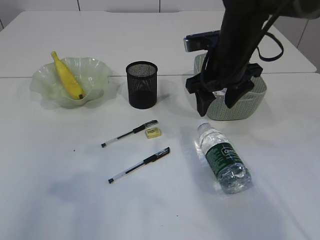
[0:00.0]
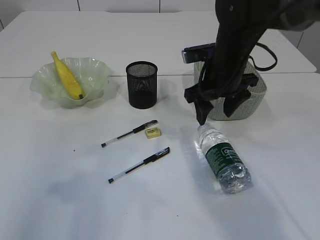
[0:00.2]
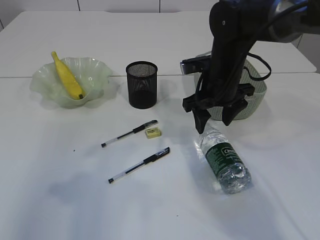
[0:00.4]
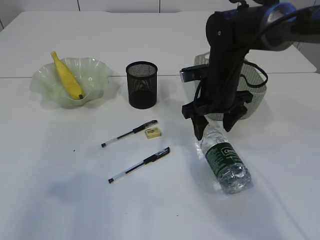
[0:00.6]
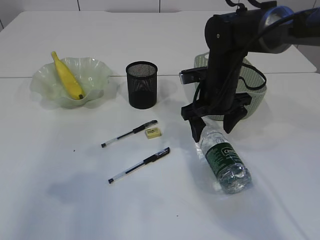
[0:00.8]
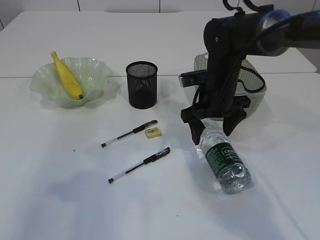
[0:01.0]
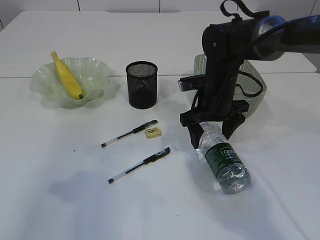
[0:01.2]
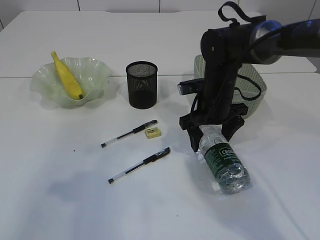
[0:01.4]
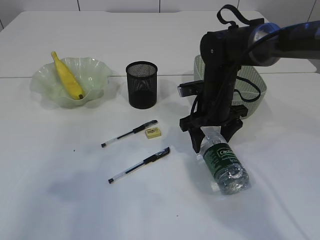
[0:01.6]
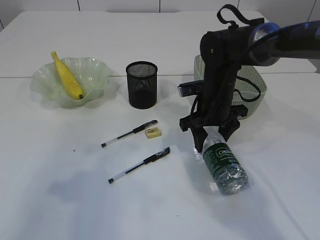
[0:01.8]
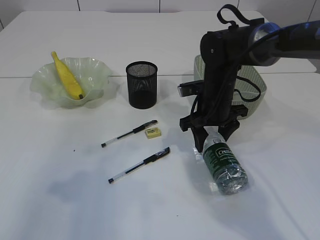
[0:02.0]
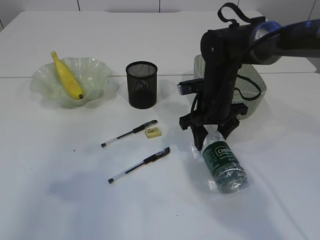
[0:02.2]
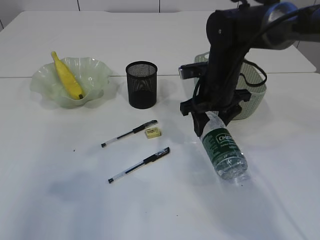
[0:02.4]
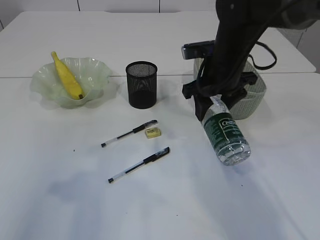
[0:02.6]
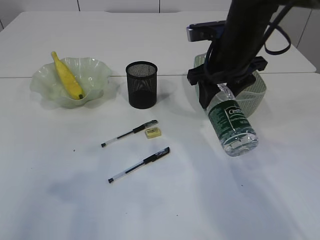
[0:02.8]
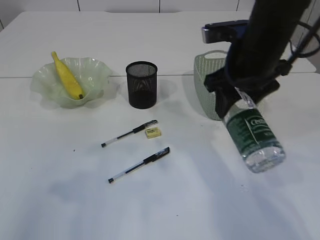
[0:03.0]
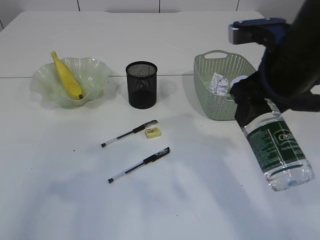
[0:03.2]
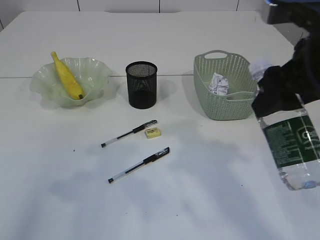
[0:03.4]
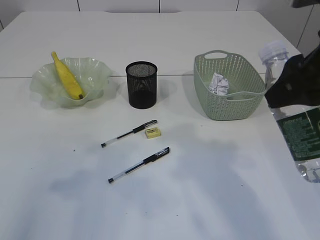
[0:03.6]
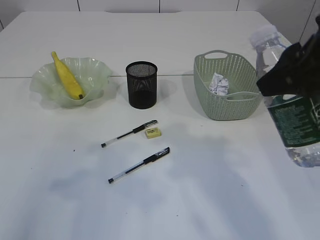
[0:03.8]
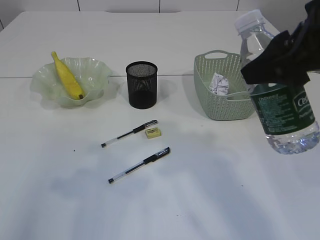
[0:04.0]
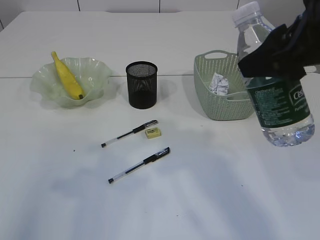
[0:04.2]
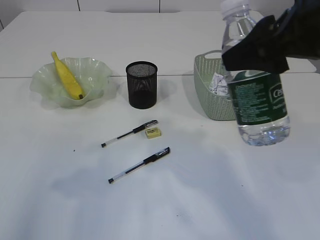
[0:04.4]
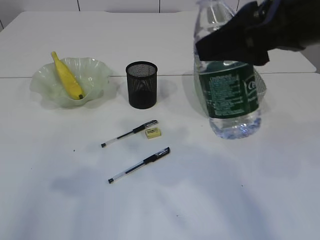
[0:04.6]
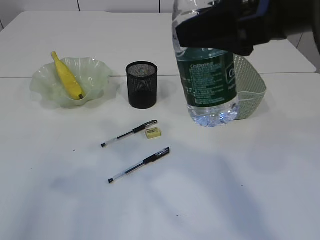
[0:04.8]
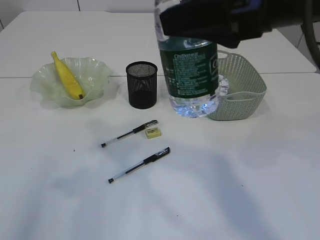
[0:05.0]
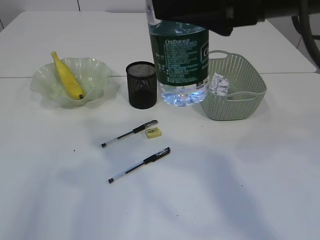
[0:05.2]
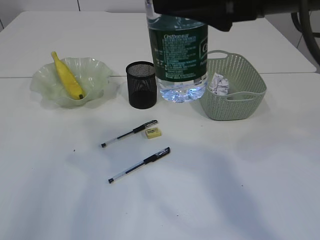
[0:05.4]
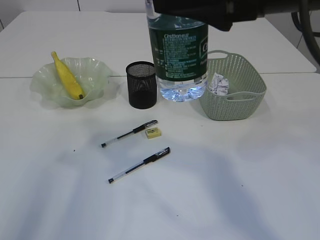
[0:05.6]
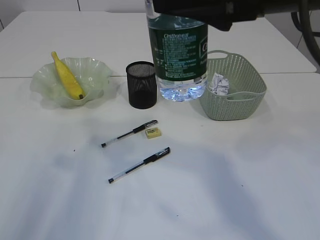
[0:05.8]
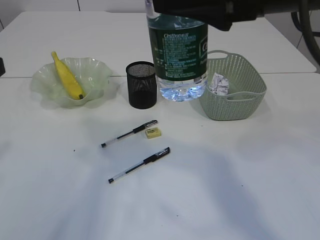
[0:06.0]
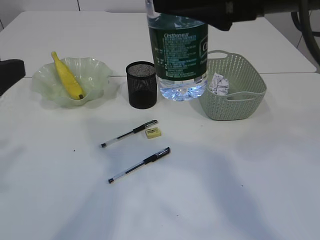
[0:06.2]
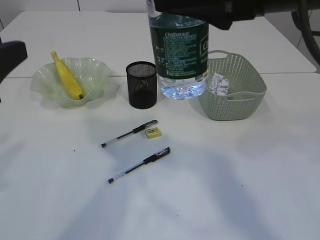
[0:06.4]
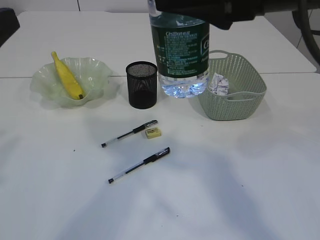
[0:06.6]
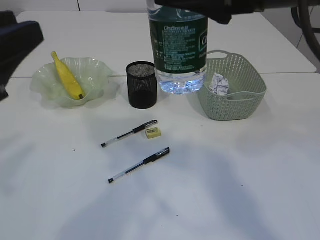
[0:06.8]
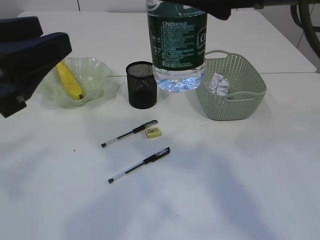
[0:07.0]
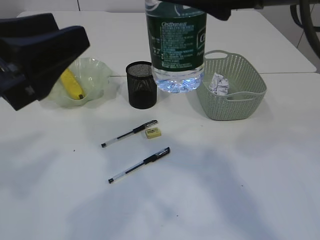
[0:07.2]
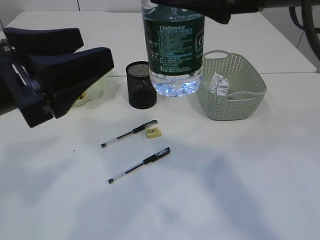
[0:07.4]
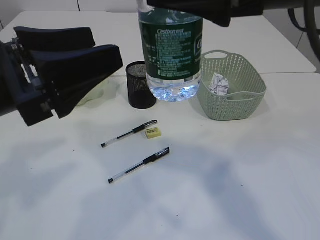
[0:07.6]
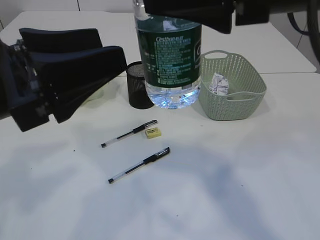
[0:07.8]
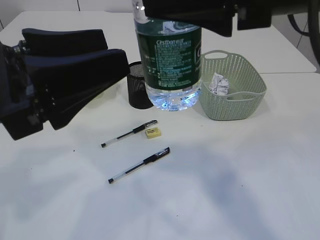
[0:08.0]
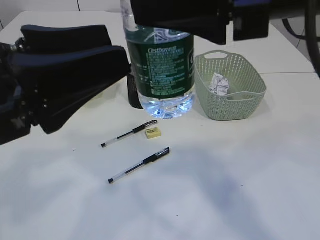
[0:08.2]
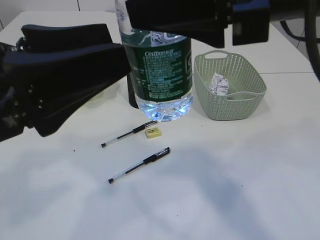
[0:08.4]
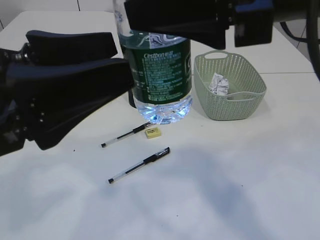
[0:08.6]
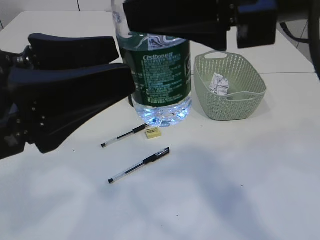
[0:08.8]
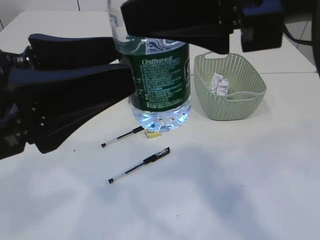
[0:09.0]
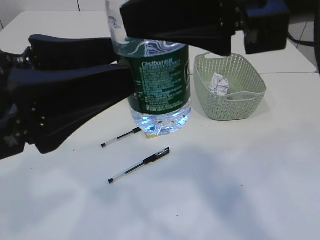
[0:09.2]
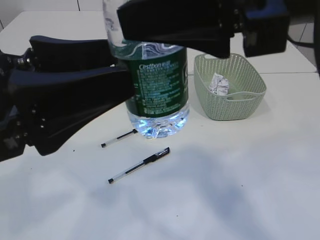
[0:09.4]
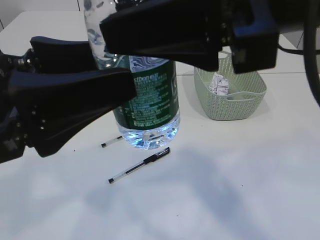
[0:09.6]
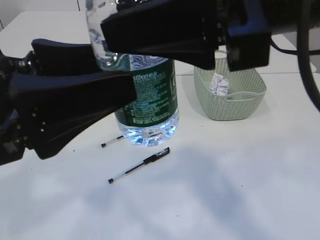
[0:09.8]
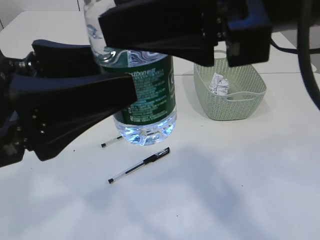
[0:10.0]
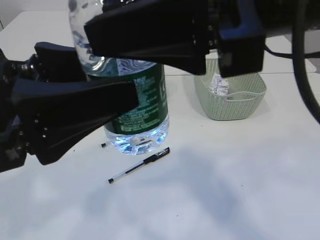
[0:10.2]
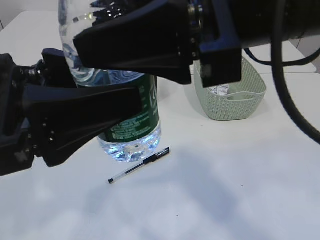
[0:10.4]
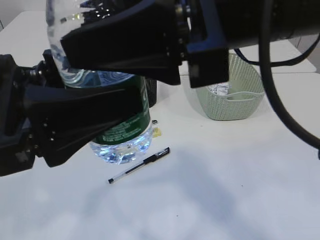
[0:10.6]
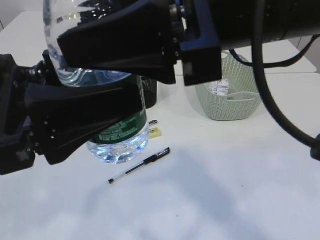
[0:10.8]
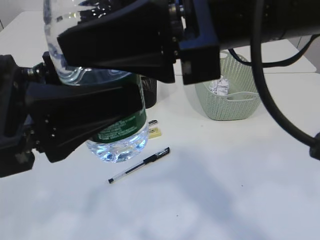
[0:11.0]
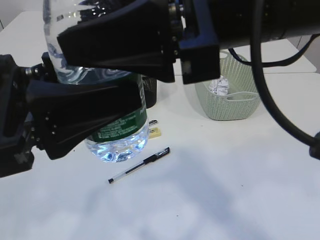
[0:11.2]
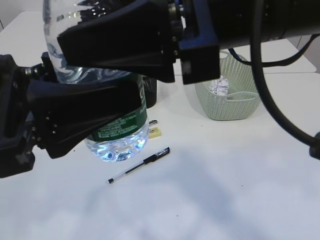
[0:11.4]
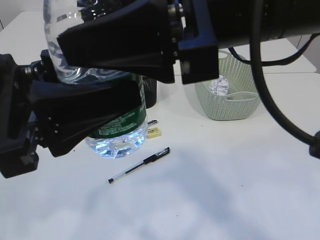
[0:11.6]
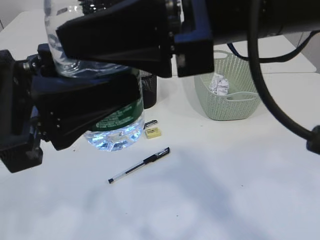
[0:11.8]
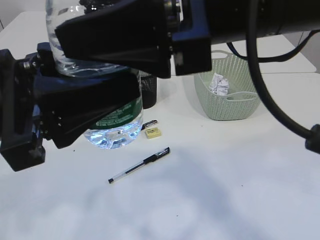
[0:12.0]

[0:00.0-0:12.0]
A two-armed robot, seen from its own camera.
Step, 0:00.0 to 0:02.6: Pick up the bottle with the right arm.
0:00.0 to 0:01.6: The right gripper heads downward, covering about 10 cm.
0:01.6 to 0:03.0: The right gripper heads upward and backward, covering about 15 cm.
0:03.0 to 0:04.4: The right gripper moves backward and upward, about 15 cm.
0:06.0 to 0:07.6: The left gripper is displaced to the right by roughly 10 cm, and opens its fingers.

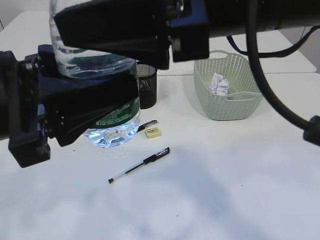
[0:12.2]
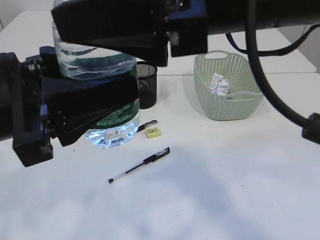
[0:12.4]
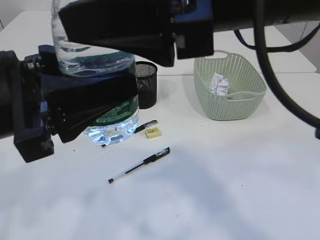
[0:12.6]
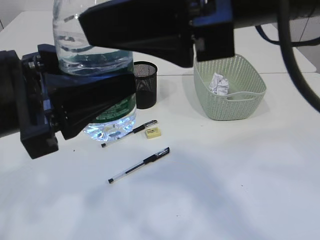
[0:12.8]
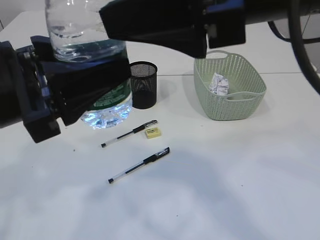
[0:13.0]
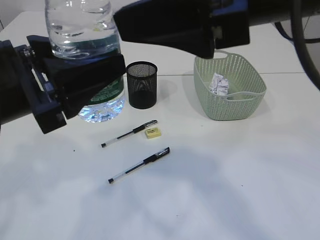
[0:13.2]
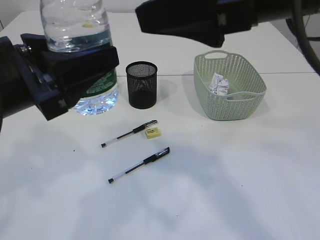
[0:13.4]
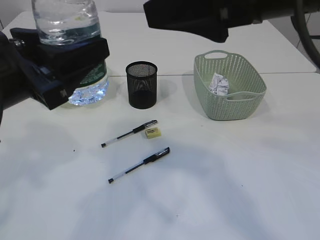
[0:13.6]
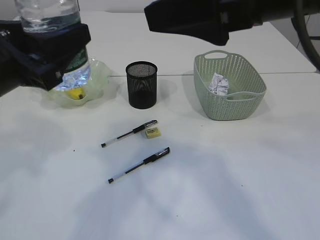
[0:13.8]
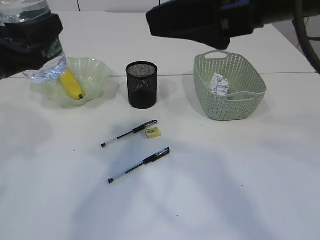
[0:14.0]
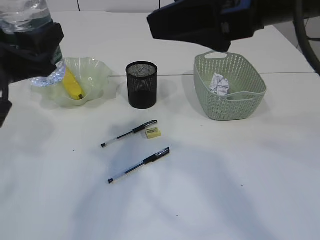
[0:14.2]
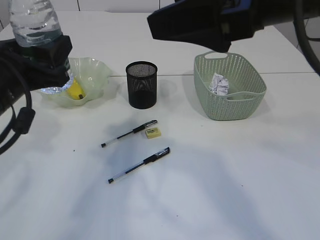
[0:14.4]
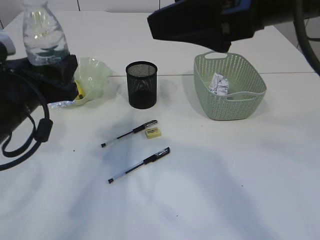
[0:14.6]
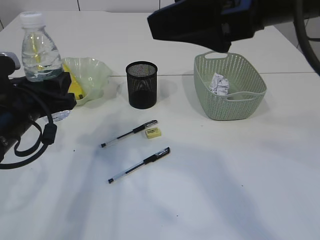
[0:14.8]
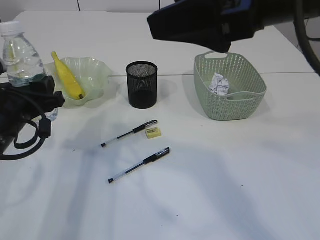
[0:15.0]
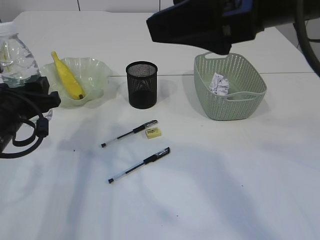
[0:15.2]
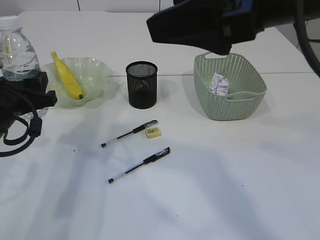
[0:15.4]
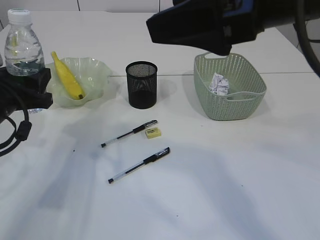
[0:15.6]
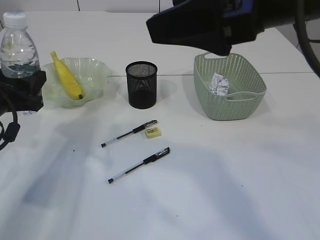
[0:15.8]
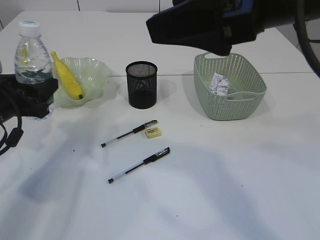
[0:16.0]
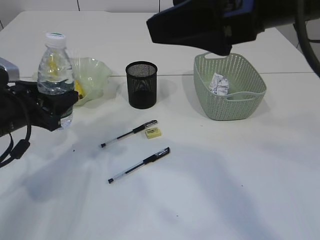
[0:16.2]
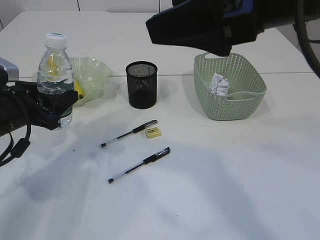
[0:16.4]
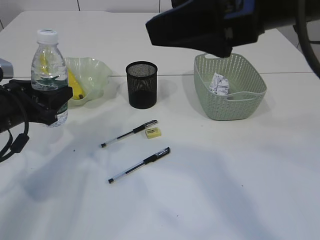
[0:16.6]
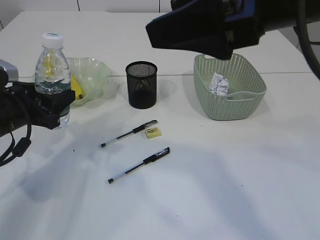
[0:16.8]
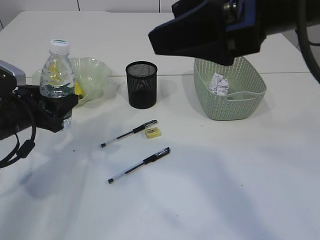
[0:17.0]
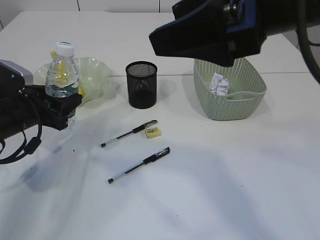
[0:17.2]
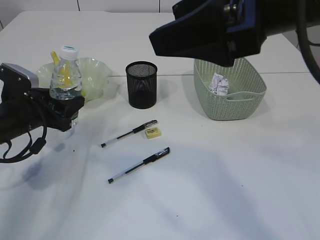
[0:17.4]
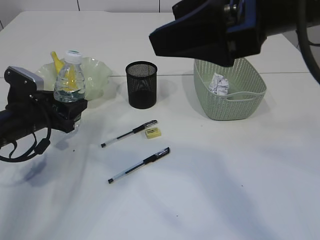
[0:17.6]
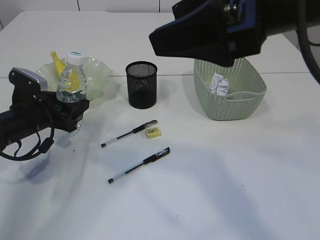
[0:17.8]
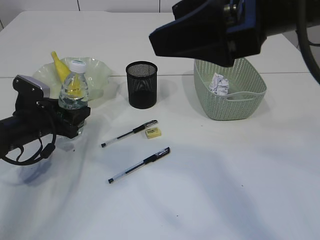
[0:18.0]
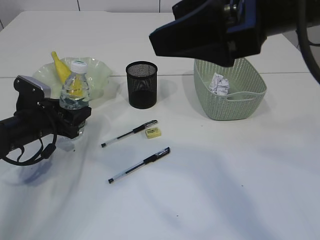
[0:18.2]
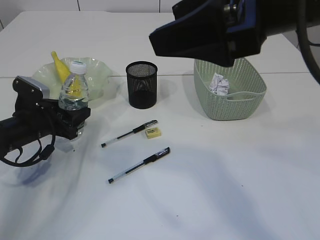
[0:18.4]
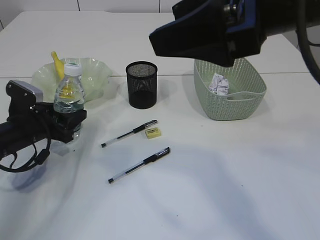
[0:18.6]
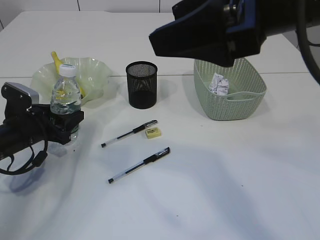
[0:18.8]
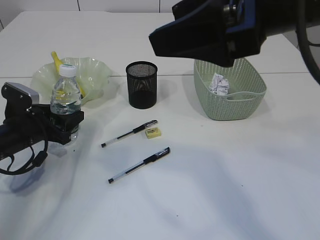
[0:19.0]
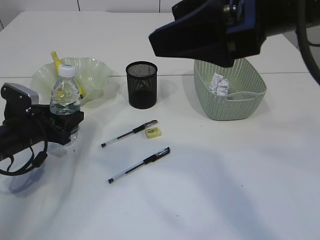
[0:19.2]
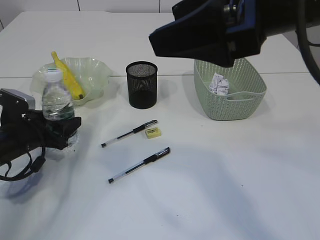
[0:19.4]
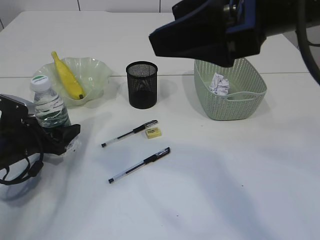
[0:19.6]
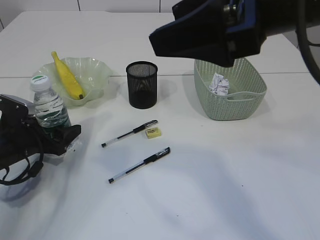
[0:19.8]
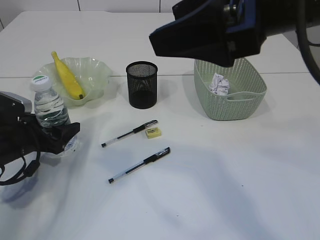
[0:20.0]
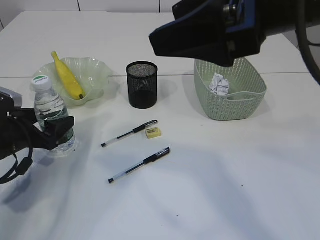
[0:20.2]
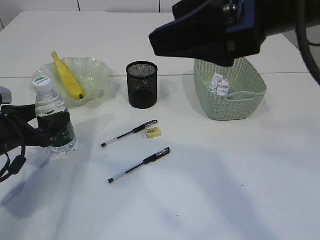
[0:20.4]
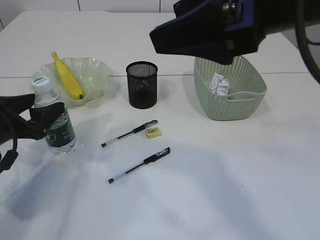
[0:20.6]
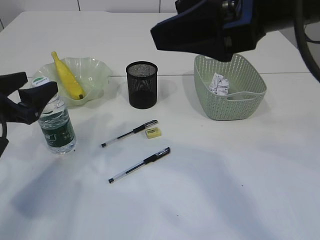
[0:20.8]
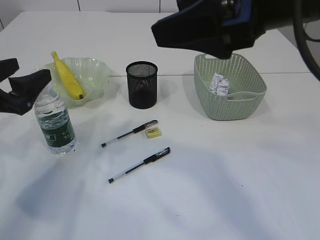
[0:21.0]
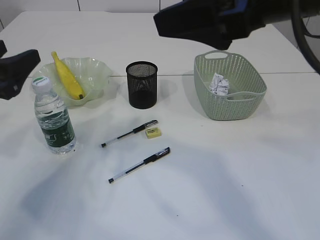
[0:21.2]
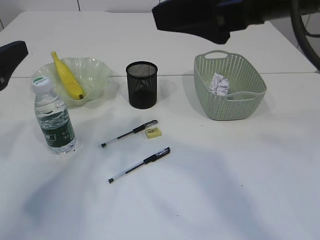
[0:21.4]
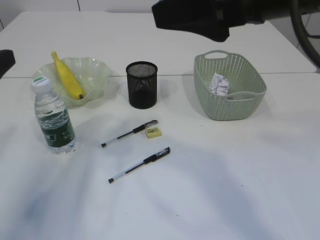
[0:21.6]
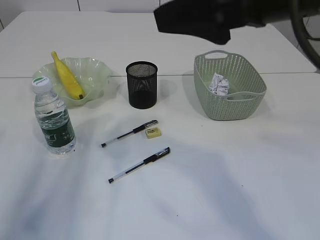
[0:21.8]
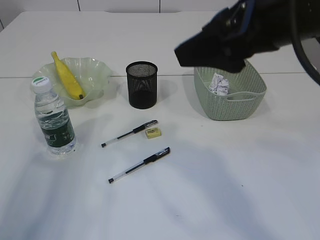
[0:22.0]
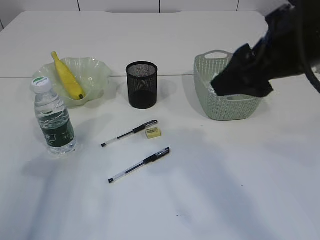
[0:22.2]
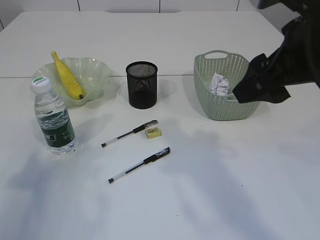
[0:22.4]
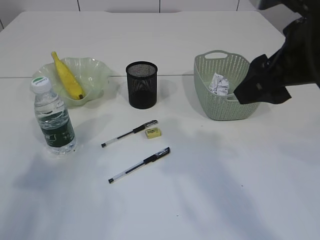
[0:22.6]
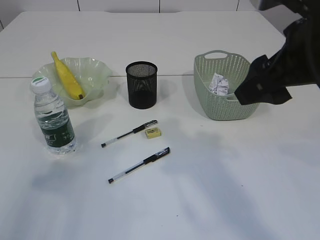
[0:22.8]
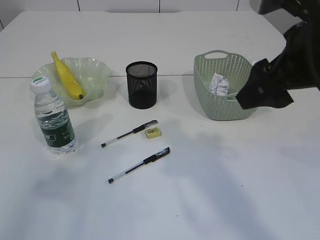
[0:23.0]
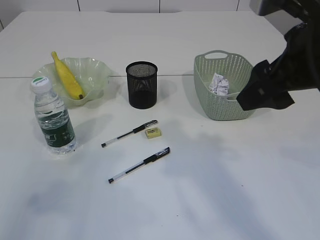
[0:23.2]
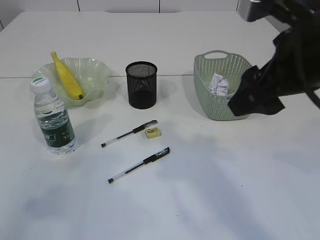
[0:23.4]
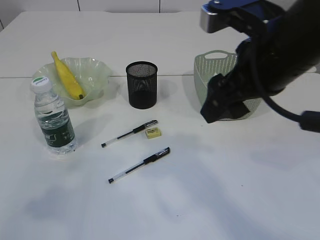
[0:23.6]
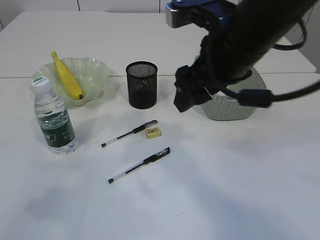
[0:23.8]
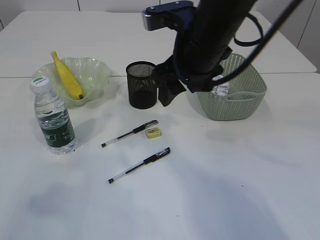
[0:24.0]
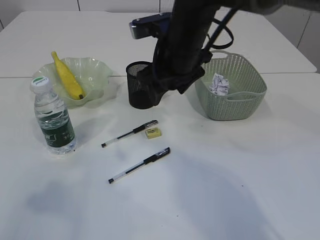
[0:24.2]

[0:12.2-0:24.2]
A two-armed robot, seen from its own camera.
Step, 0:13.2 to 0:21.0: Place the bottle.
0:12.2 to 0:13.8: The right gripper moves to the right, roughly 5 cm. Meanwhile the left gripper changes place by roughly 5 cm.
0:13.8 to 0:15.2: The left gripper heads downward and forward, covering approximately 10 cm.
0:15.2 to 0:16.6: The left gripper shifts by roughly 5 cm.
0:16.6 to 0:18.2: The left gripper goes roughly 10 cm downward and forward.
0:18.2 to 0:19.8: There are only small adjustments of the grippers.
0:19.8 to 0:21.2: The left gripper shifts some 20 cm upward and backward.
0:21.2 to 0:22.6: The left gripper is displaced backward and upward by roughly 10 cm, while the right gripper moves roughly 5 cm.
0:22.6 to 0:24.2: The left gripper ends up about 5 cm from where it was; the right gripper shifts approximately 20 cm forward, to the left and downward.
